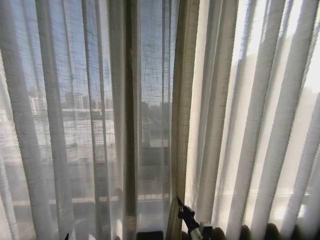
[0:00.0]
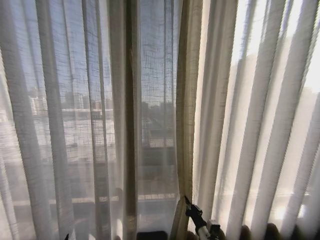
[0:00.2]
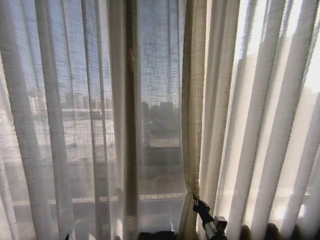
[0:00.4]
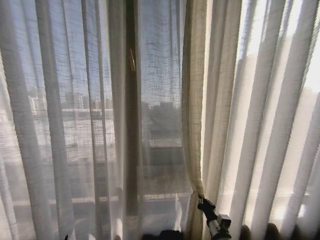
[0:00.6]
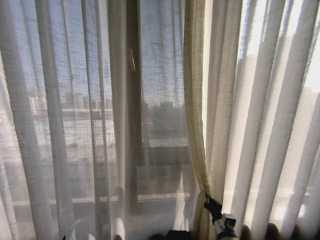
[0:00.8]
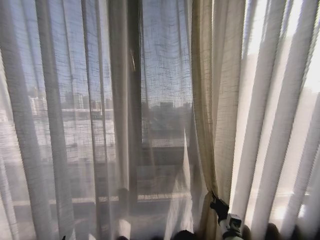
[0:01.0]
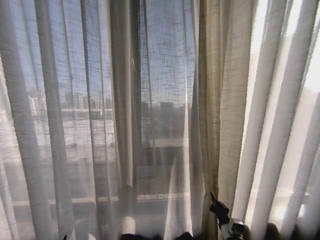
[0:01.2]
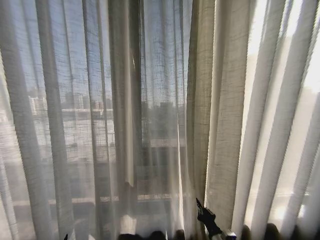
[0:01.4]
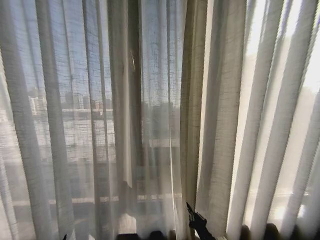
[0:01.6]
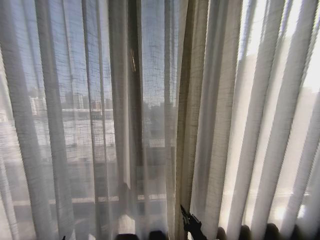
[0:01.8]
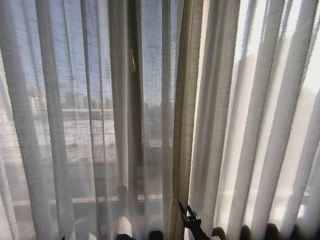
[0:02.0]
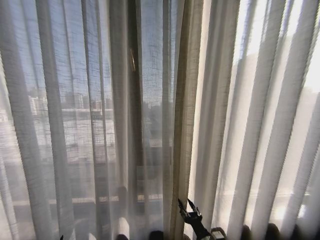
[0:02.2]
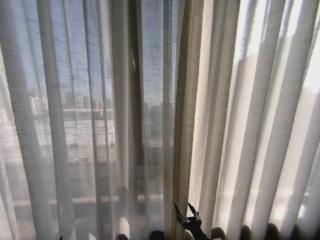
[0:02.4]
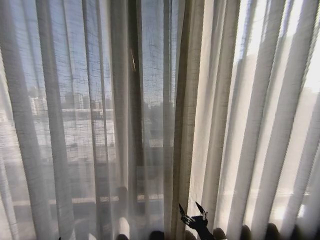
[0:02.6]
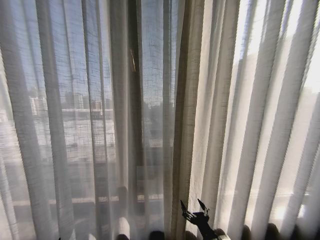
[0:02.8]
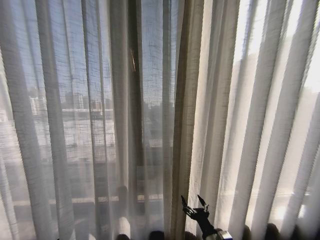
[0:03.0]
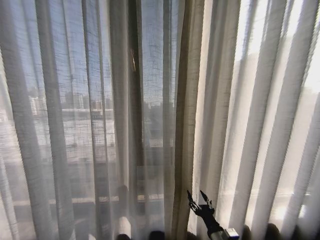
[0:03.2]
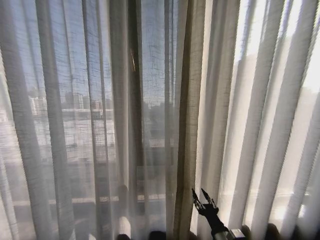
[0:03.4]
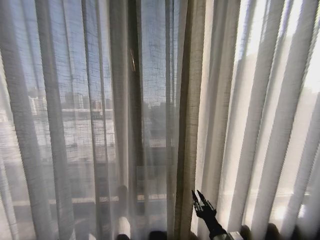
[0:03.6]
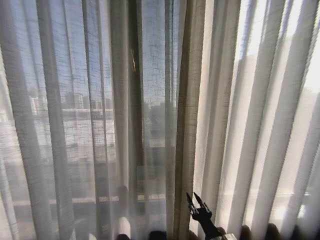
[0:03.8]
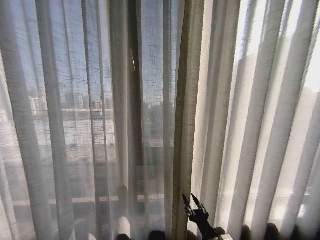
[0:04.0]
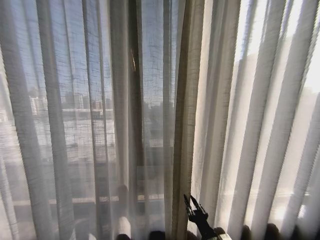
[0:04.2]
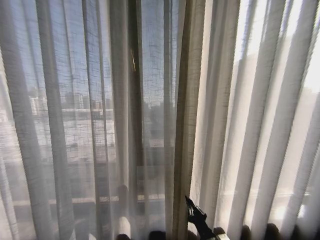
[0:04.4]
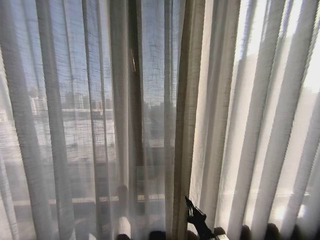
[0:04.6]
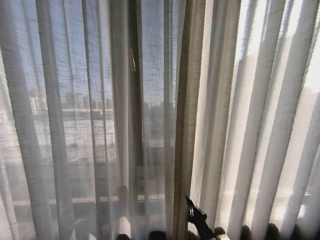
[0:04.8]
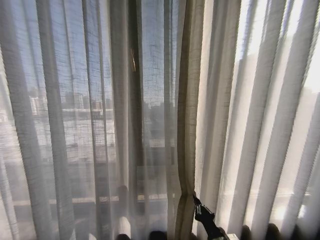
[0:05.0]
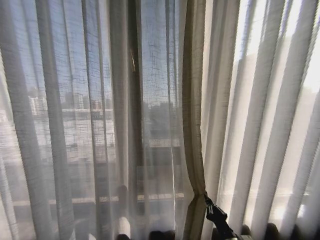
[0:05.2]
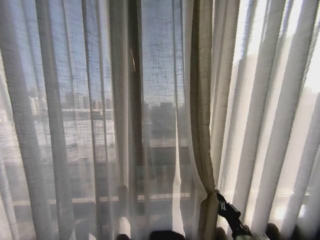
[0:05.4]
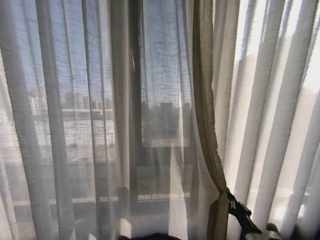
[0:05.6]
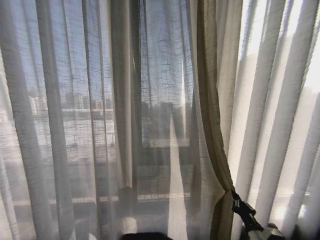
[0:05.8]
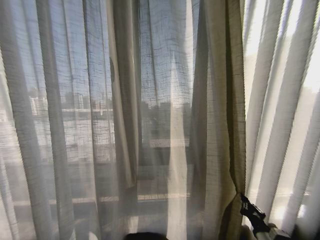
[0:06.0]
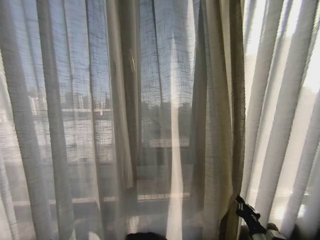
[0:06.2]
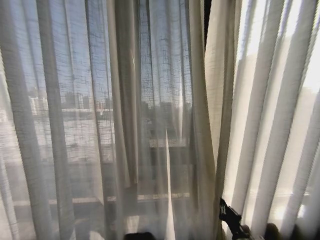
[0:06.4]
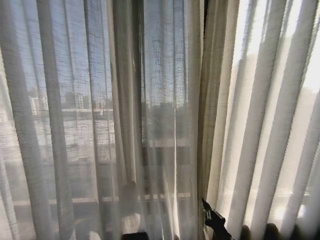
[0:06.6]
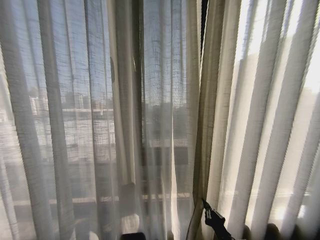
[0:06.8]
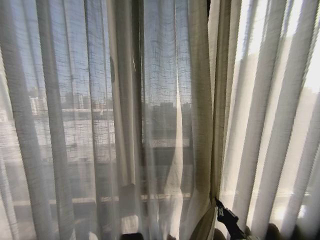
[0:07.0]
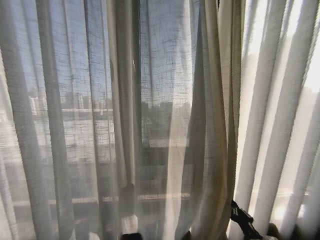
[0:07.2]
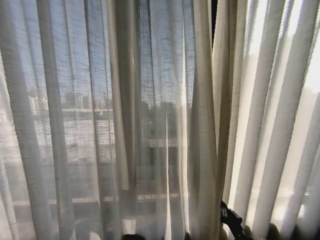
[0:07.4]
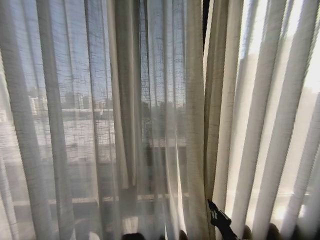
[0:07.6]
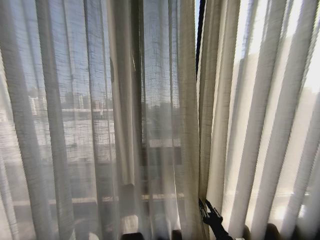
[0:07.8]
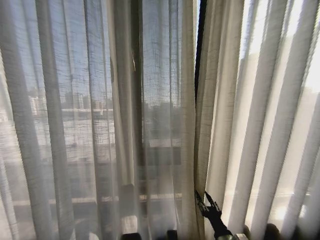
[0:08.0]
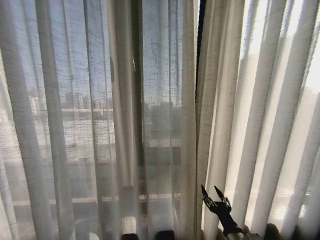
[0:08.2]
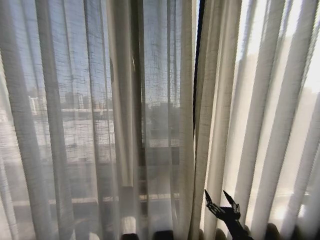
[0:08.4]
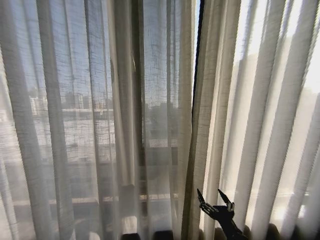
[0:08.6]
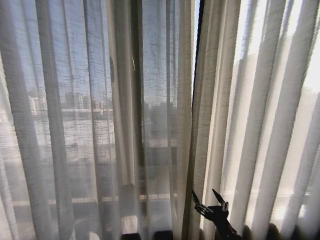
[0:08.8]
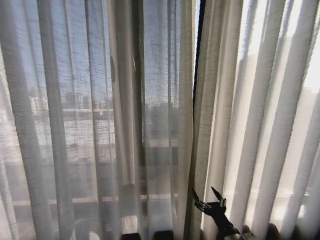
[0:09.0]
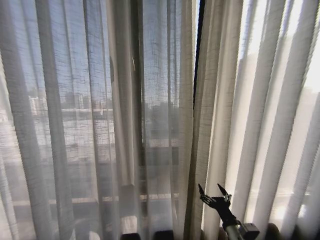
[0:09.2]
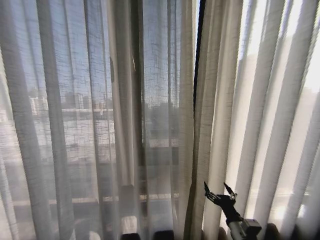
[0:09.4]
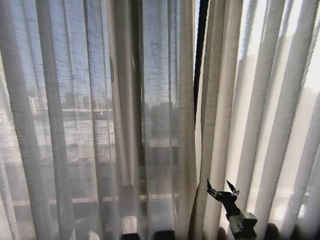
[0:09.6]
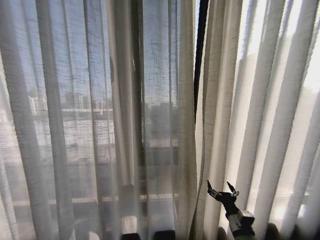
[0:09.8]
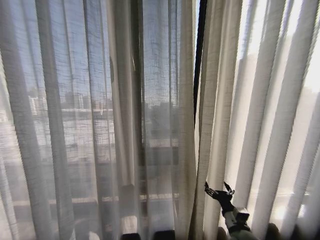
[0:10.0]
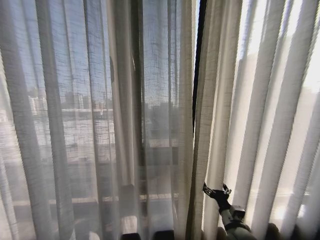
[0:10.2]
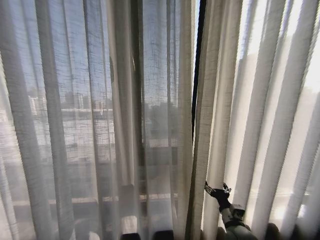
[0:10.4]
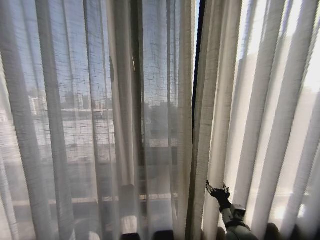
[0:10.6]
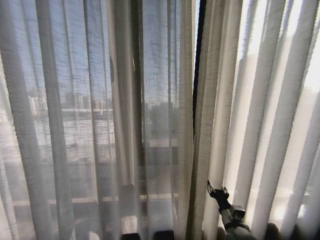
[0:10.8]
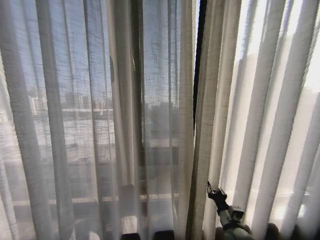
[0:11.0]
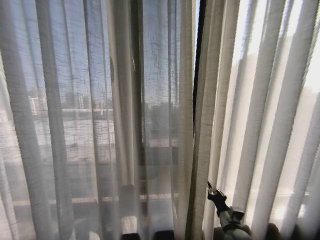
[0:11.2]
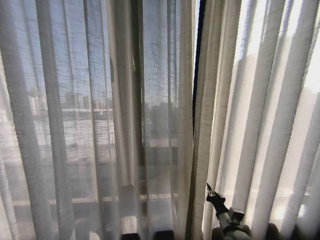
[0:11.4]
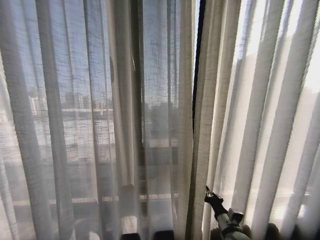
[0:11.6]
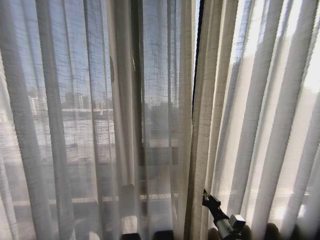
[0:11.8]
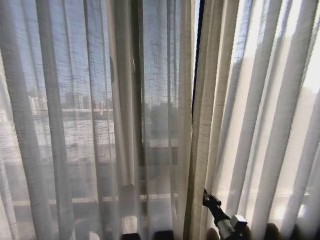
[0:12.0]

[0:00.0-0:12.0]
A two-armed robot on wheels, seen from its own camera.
Task of the whole recording: Open the curtains by pulling them apart, changing their state from closed to fully open.
0:00.0 to 0:01.6: The right gripper moves to the right, approximately 5 cm.
0:01.6 to 0:03.0: The right gripper opens its fingers.
0:03.0 to 0:04.4: The right gripper closes.
0:04.4 to 0:06.0: The right gripper shifts some 20 cm to the right.
0:06.0 to 0:07.6: The right gripper moves left and right over roughly 10 cm, changing direction 2 times.
0:07.6 to 0:09.0: The right gripper heads upward, covering about 10 cm, and opens up.
0:09.0 to 0:10.4: The right gripper heads forward and to the right, covering about 15 cm.
0:10.4 to 0:12.0: The right gripper goes approximately 5 cm backward, and closes.

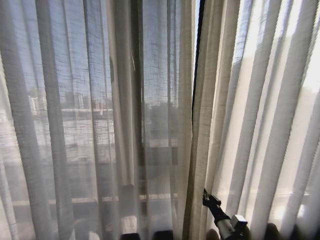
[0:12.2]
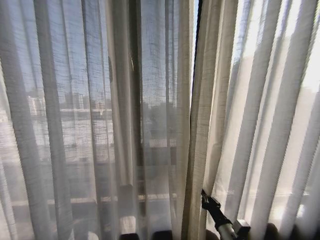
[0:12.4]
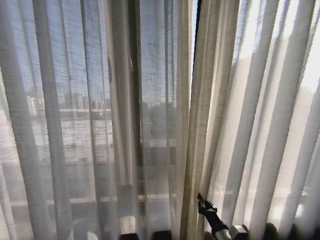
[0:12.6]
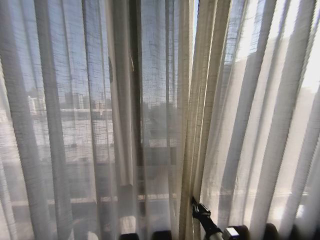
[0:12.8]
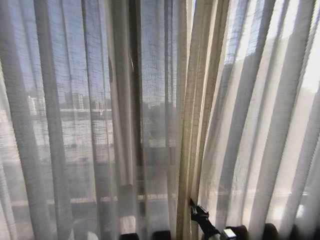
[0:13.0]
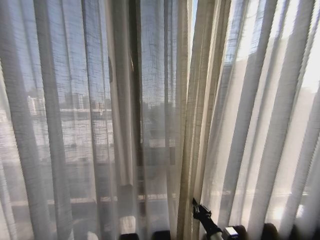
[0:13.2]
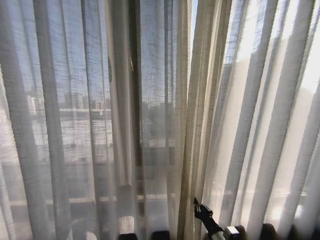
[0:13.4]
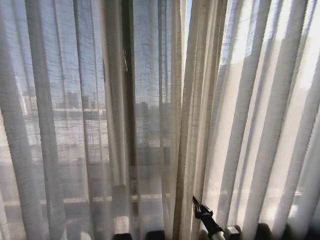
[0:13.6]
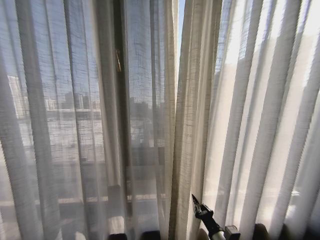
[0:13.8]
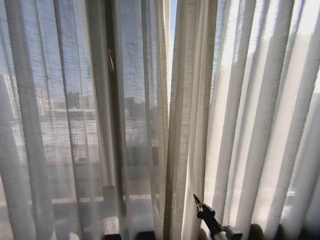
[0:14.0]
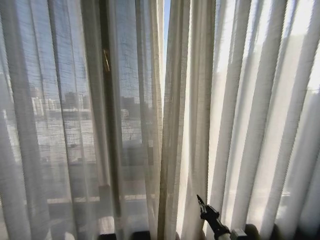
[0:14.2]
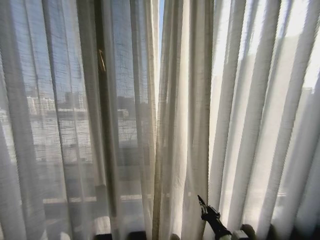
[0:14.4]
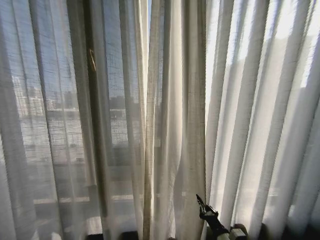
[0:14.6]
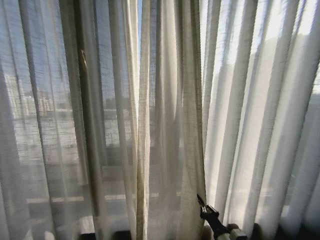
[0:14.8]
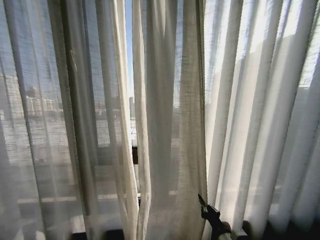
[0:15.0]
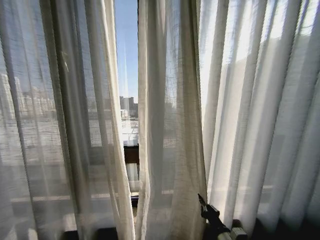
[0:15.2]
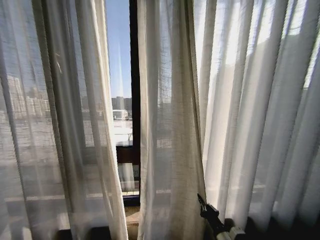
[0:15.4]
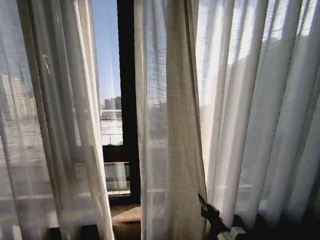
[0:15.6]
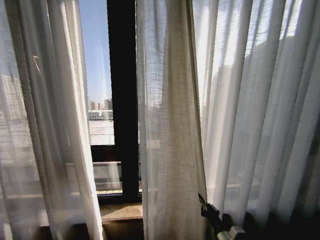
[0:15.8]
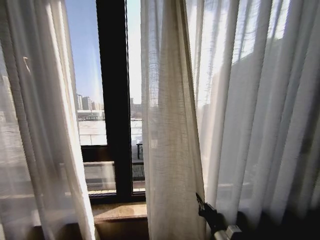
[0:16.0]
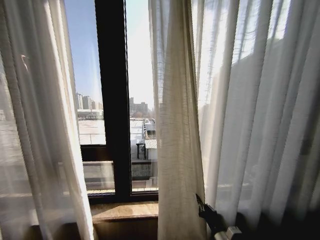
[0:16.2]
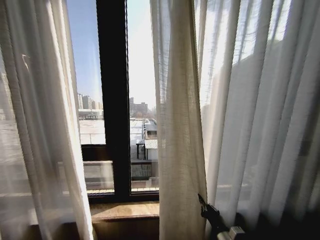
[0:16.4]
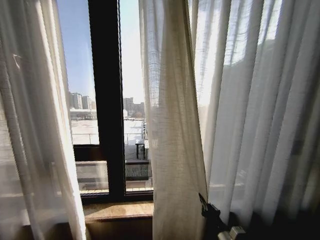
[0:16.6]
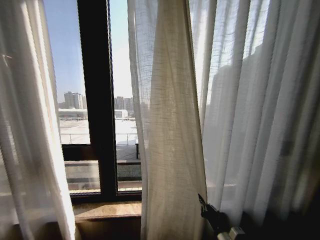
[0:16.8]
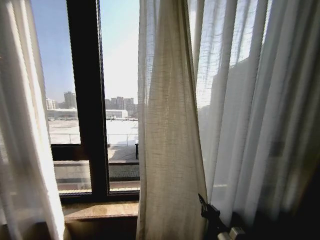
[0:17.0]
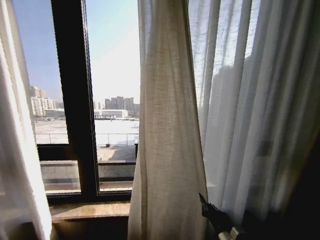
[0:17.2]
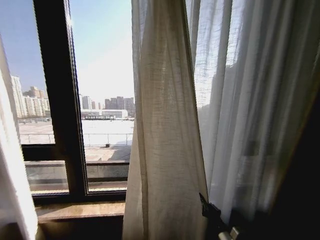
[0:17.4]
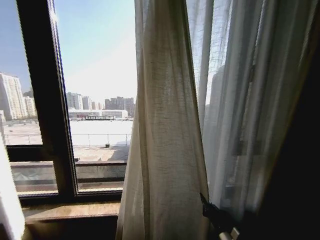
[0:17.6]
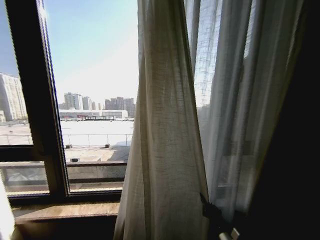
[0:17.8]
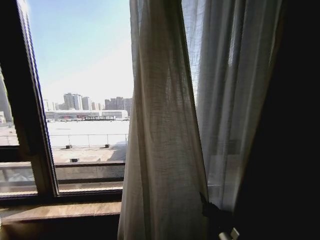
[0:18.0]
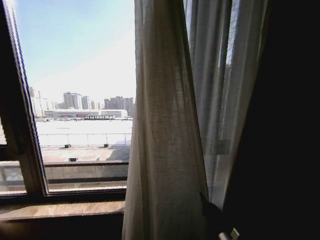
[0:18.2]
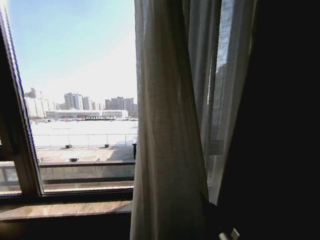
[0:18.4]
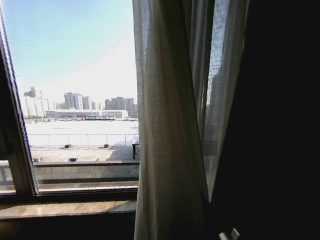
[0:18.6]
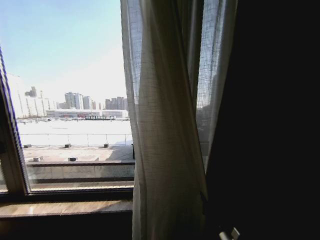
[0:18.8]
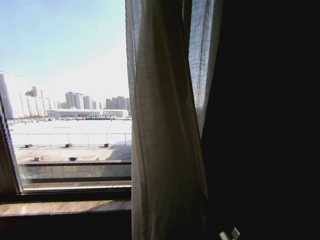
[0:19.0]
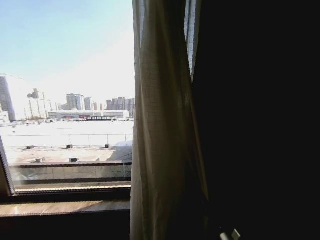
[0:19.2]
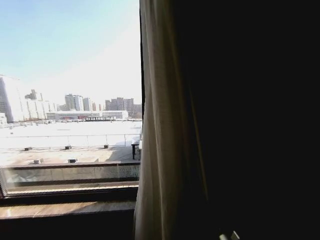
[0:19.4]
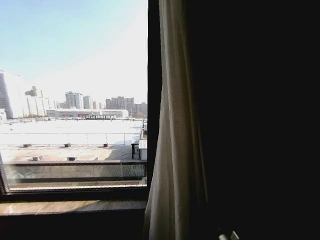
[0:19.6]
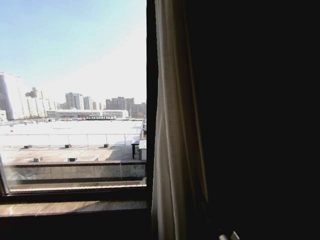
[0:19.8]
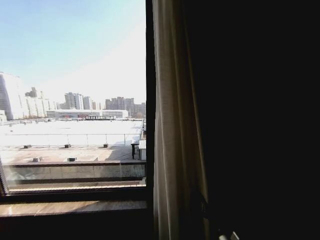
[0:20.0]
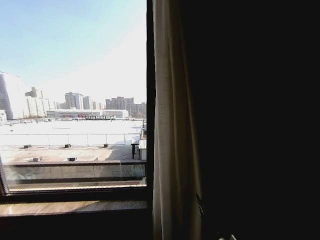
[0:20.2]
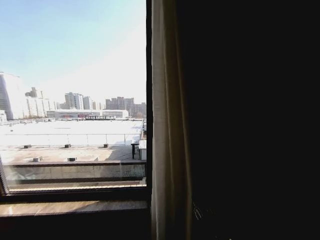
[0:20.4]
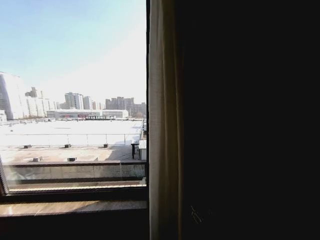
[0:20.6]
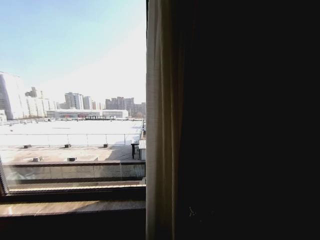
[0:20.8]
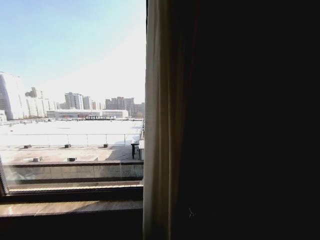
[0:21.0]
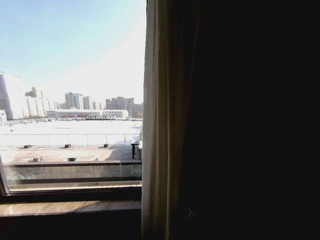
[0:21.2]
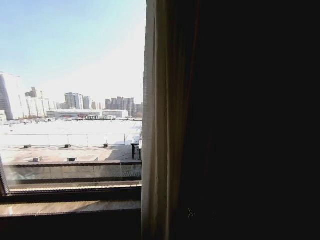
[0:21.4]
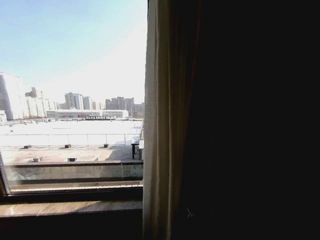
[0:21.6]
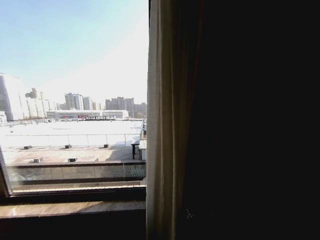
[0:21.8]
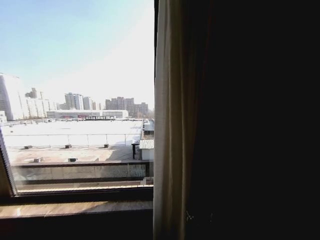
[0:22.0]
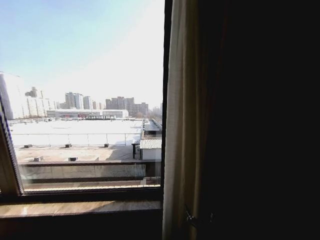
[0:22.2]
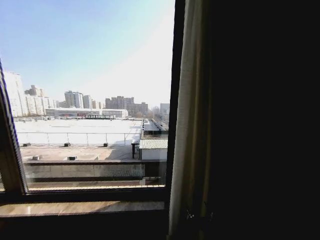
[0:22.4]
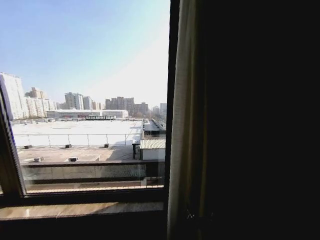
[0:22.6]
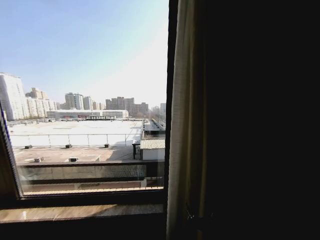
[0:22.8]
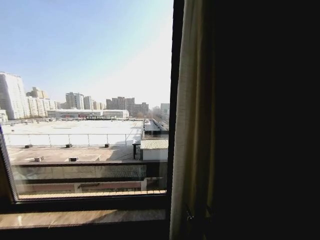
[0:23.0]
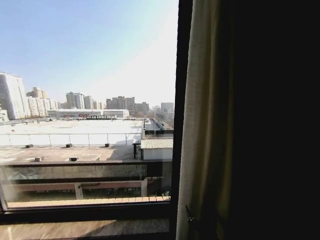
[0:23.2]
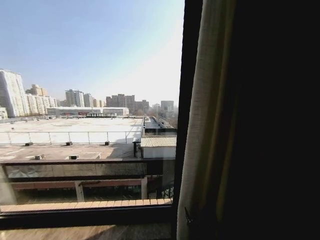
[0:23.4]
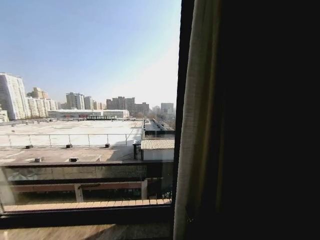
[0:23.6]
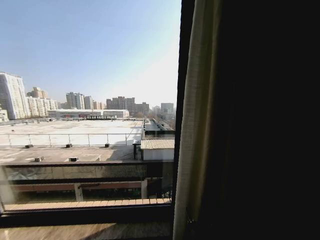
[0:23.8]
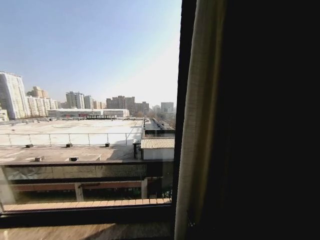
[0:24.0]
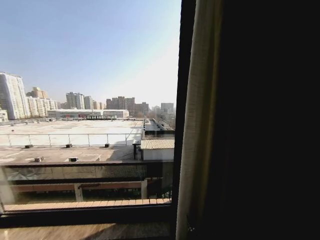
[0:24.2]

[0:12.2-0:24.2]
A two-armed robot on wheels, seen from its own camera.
Task of the whole recording: Open the curtains by pulling them apart, changing their state from closed to fully open.
0:19.8 to 0:21.2: The right gripper opens up.
0:22.6 to 0:24.2: The right gripper travels backward by roughly 5 cm.
